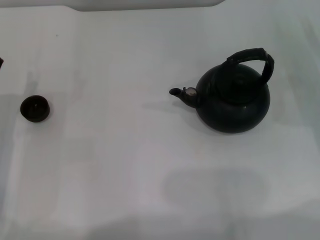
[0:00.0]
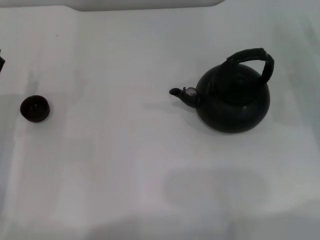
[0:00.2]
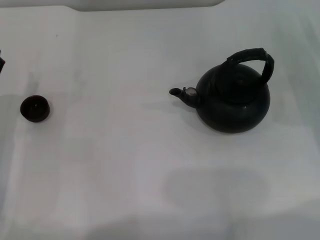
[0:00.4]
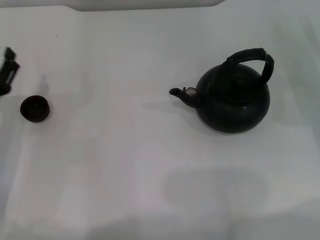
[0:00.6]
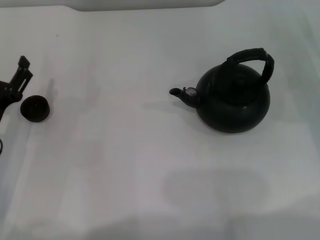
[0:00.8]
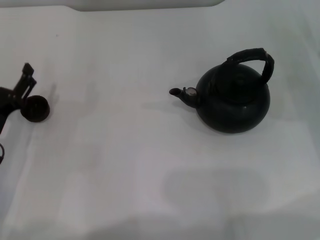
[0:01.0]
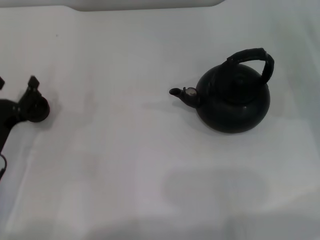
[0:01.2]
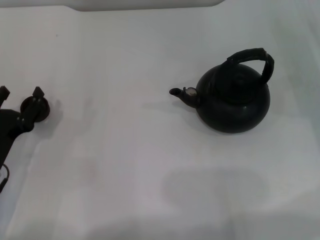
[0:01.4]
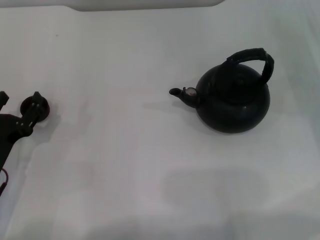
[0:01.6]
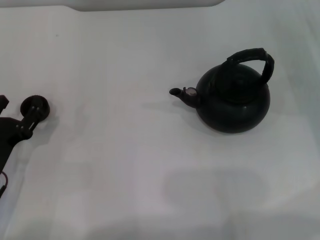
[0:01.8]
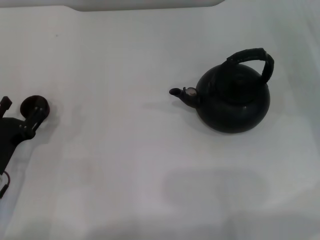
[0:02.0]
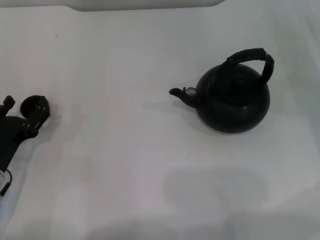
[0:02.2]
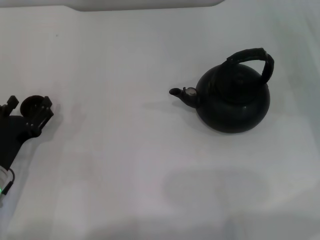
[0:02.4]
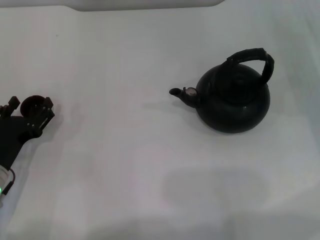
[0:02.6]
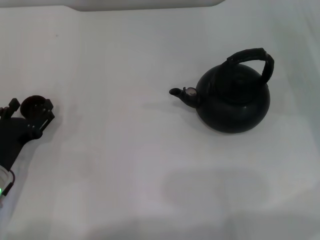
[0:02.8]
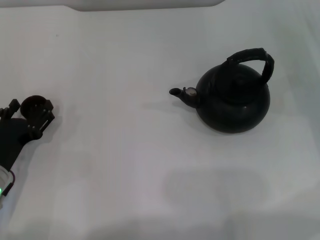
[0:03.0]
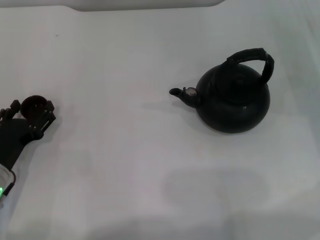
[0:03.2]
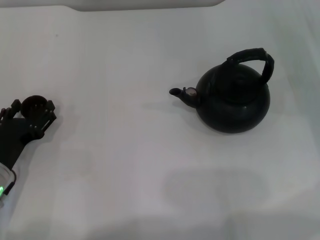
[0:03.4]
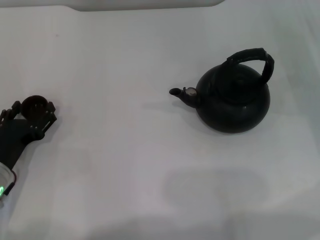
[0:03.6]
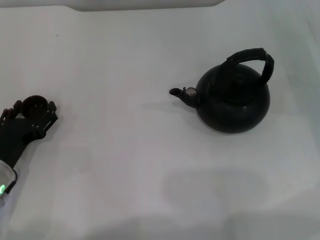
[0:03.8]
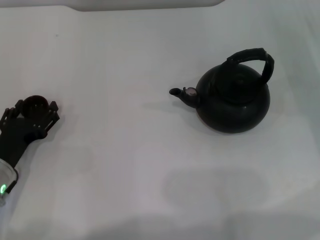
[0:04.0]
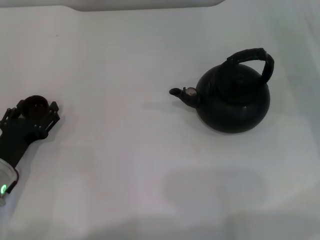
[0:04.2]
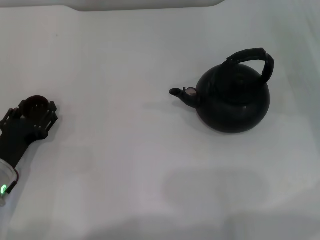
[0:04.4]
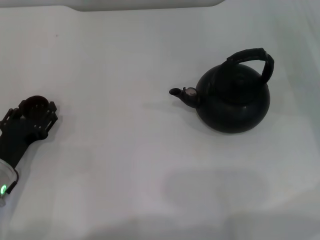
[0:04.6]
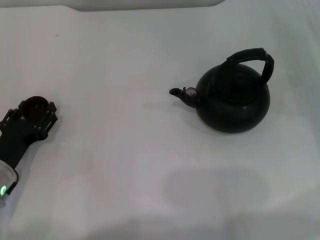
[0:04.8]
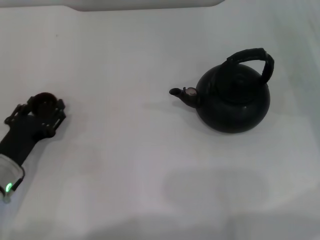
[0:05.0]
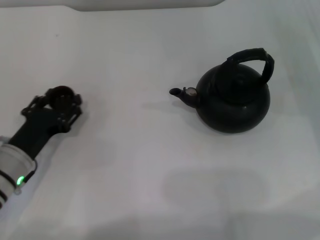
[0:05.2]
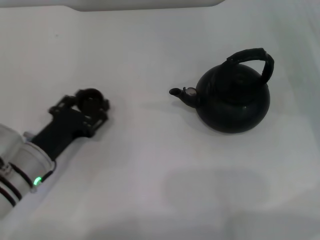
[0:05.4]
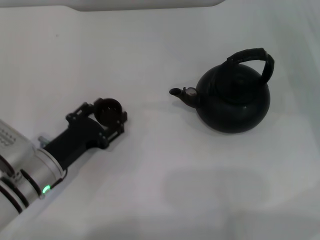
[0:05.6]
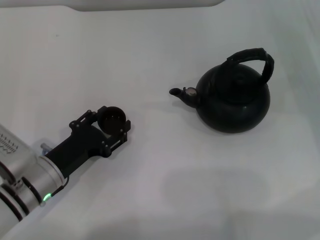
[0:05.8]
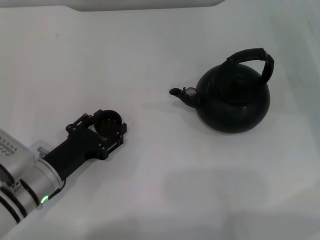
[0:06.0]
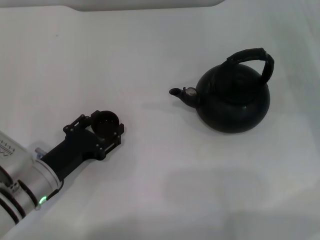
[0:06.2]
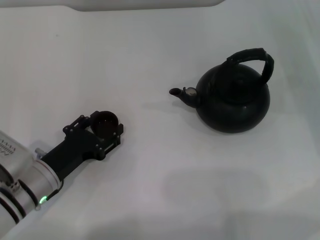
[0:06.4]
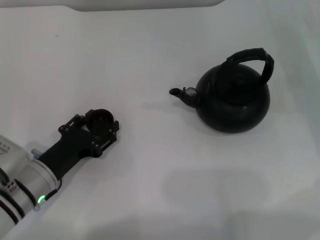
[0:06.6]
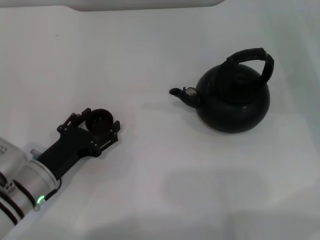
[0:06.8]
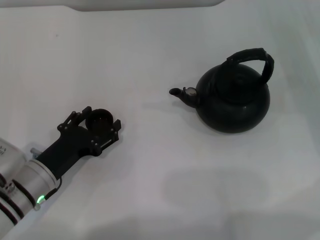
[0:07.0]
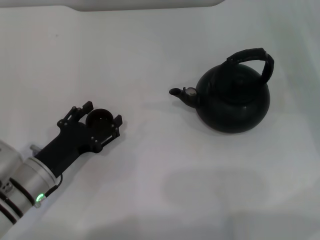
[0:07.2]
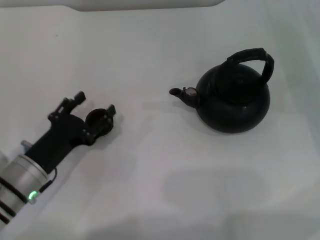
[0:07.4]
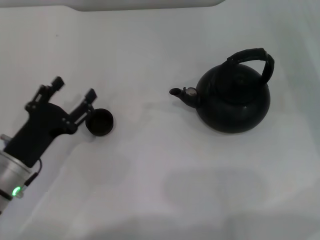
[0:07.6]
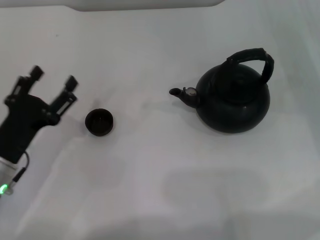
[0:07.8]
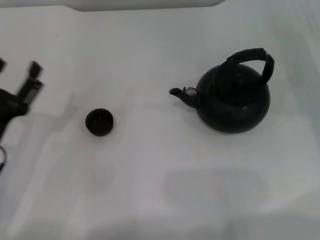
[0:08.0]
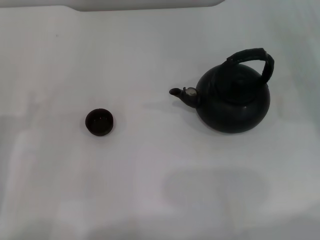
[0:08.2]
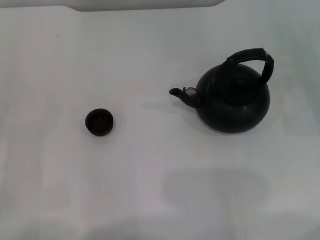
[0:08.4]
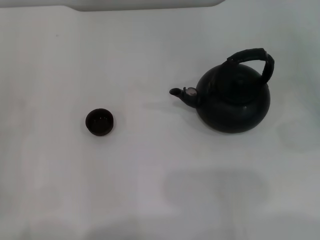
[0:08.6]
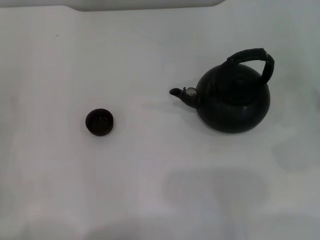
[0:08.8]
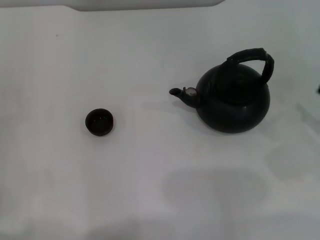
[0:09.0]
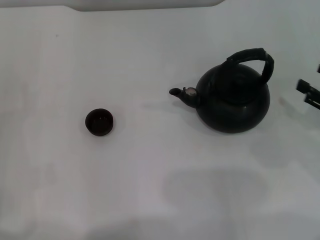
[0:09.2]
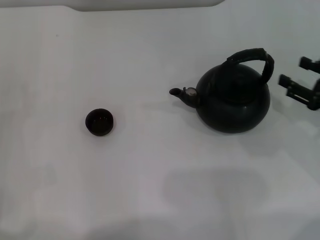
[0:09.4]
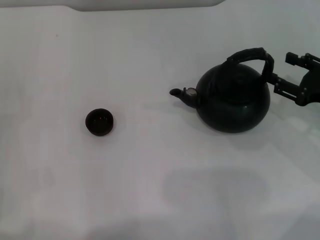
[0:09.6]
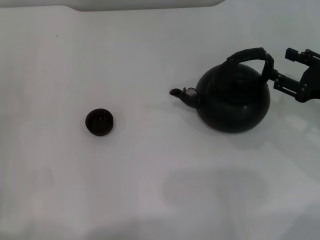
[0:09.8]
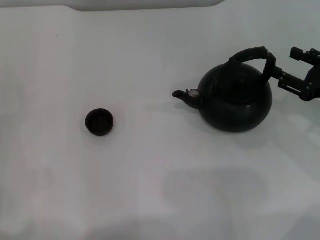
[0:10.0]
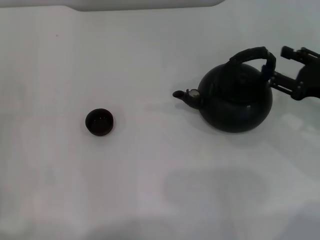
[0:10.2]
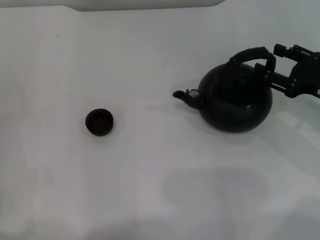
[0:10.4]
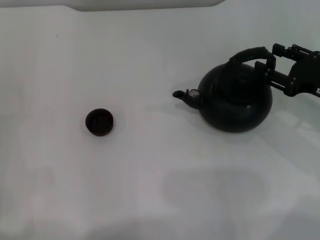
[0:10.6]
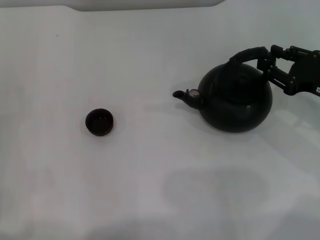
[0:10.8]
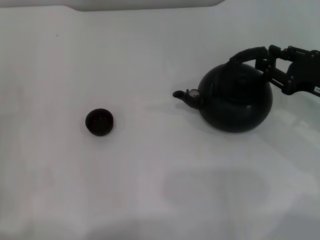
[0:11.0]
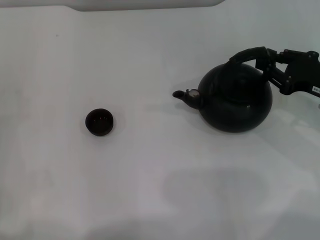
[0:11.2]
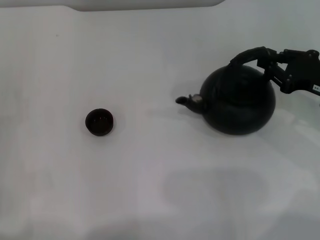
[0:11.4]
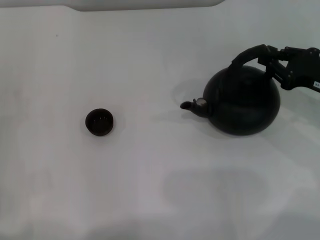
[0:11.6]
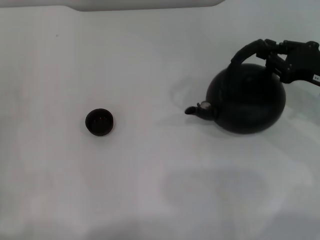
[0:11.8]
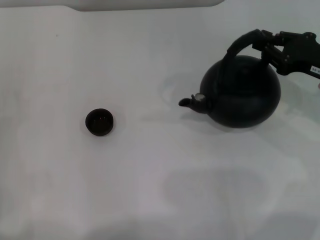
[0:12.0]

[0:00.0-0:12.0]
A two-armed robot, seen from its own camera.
Task of the whole recording: Grasp the handle of the teapot with one hand and pour tea into the teacup.
Step, 0:00.0 to 0:05.2: Pick up the teacup with the left gripper.
Step, 0:05.6 to 0:07.6: Place the teacup in the center of view with the left gripper.
Step, 0:08.0 to 0:12.0: Pick up the teapot with the right gripper.
0:00.0 to 0:01.6: The left gripper changes place by some 5 cm.
0:01.6 to 0:03.0: There are only small adjustments of the grippers.
0:03.0 to 0:04.4: The left gripper closes up.
0:04.4 to 0:06.0: The left gripper moves to the right, some 5 cm.
0:06.0 to 0:07.6: The left gripper opens its fingers.
0:07.6 to 0:09.0: The left gripper goes approximately 10 cm to the left.
0:09.0 to 0:10.4: The right gripper goes roughly 10 cm forward and to the left.
0:10.4 to 0:12.0: The right gripper closes up.

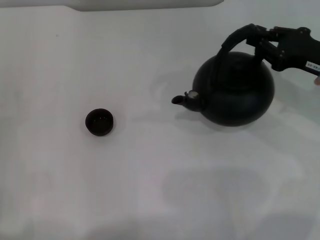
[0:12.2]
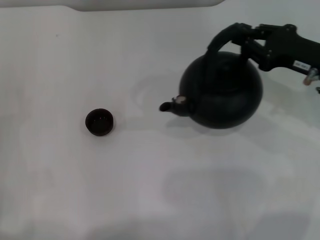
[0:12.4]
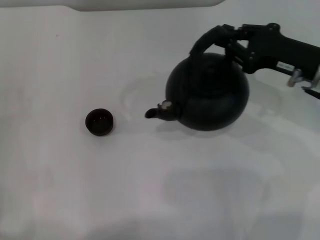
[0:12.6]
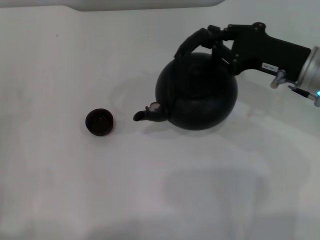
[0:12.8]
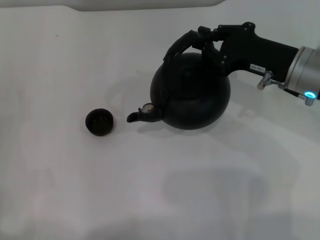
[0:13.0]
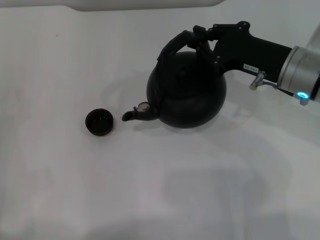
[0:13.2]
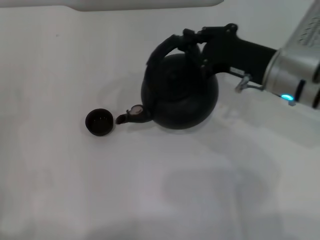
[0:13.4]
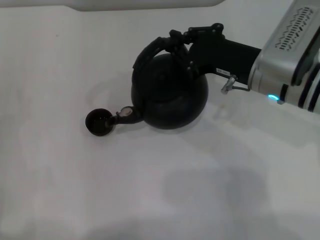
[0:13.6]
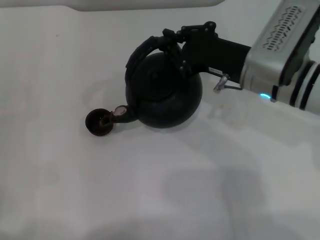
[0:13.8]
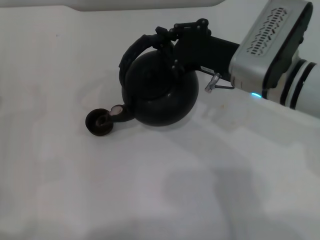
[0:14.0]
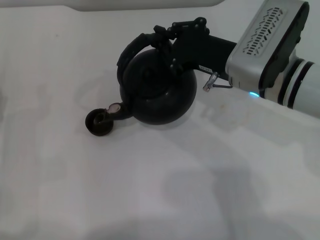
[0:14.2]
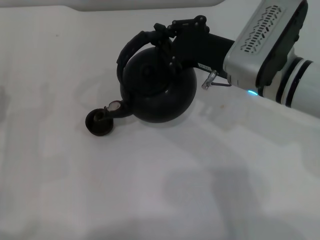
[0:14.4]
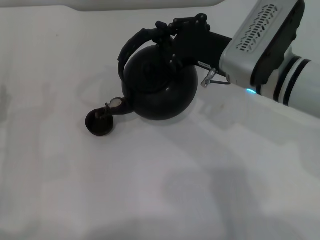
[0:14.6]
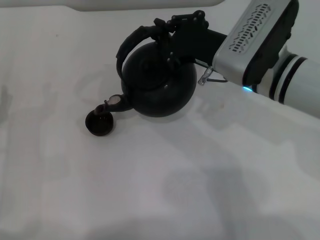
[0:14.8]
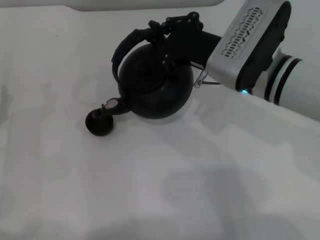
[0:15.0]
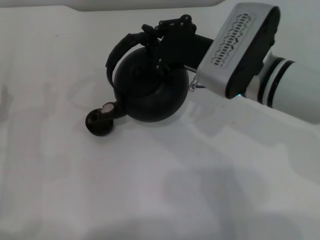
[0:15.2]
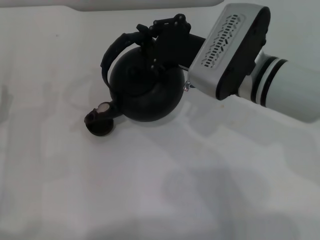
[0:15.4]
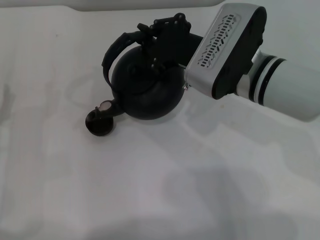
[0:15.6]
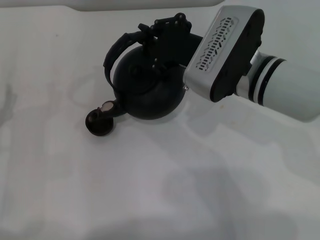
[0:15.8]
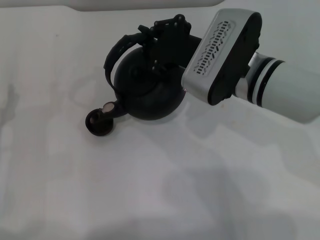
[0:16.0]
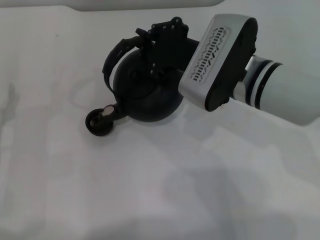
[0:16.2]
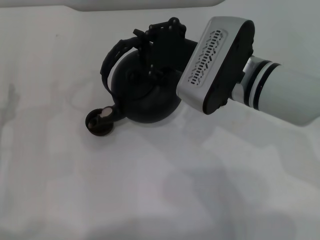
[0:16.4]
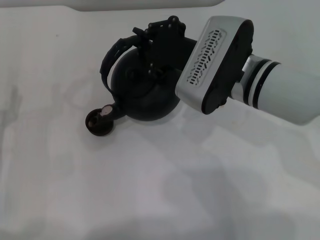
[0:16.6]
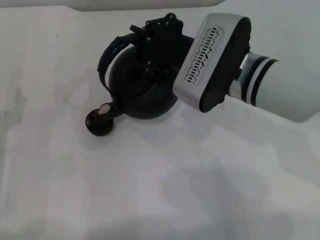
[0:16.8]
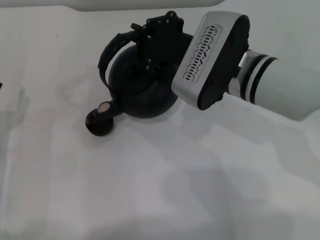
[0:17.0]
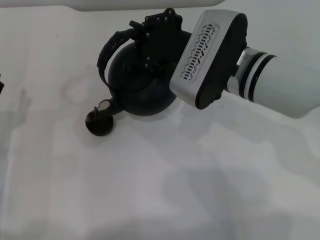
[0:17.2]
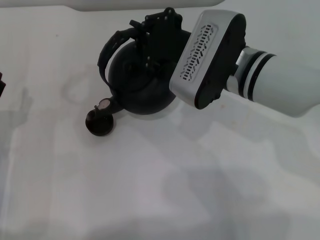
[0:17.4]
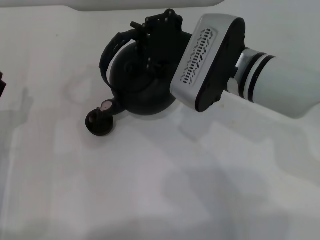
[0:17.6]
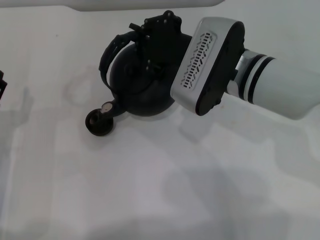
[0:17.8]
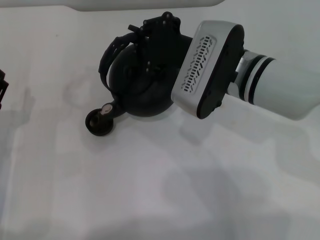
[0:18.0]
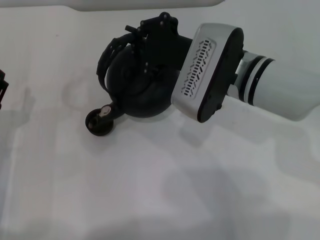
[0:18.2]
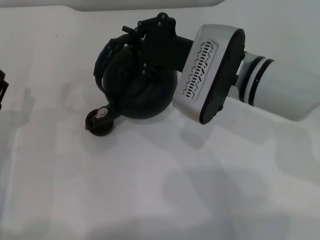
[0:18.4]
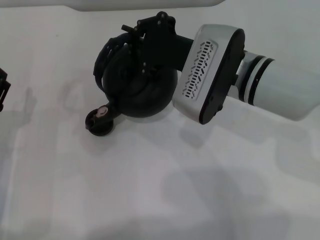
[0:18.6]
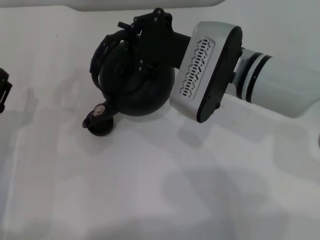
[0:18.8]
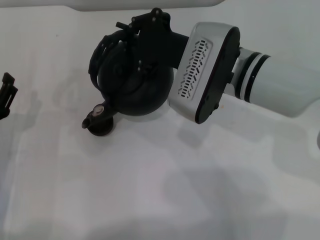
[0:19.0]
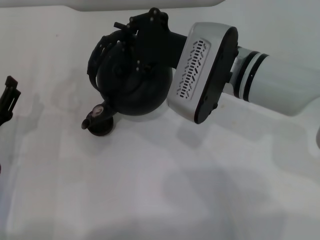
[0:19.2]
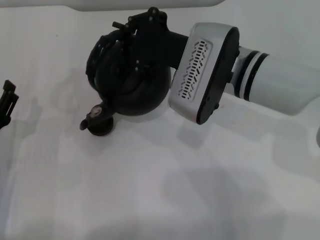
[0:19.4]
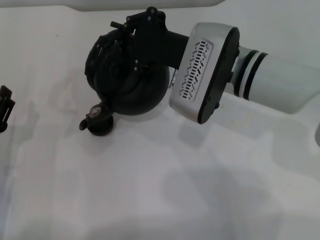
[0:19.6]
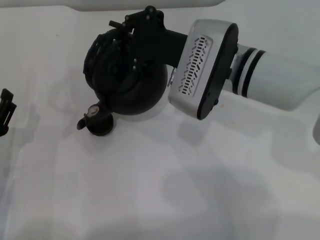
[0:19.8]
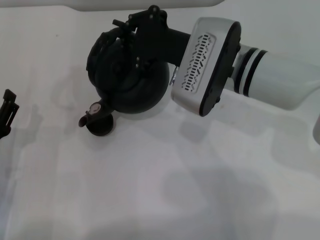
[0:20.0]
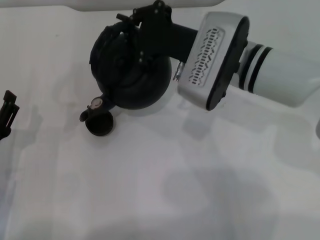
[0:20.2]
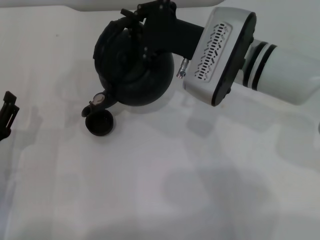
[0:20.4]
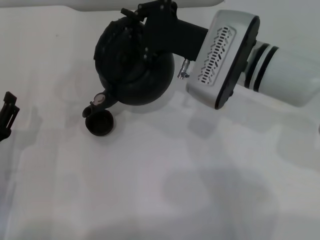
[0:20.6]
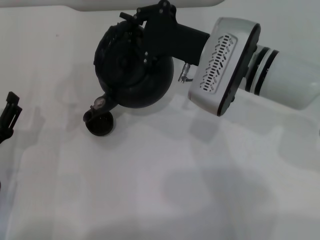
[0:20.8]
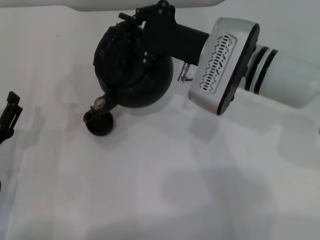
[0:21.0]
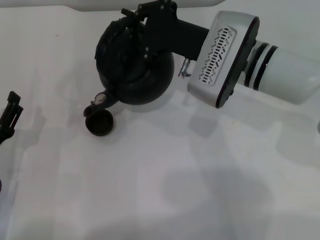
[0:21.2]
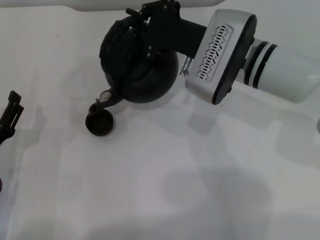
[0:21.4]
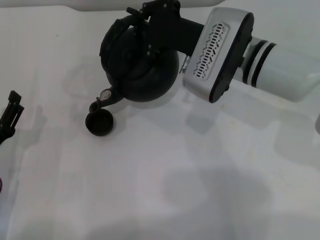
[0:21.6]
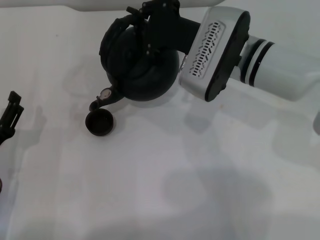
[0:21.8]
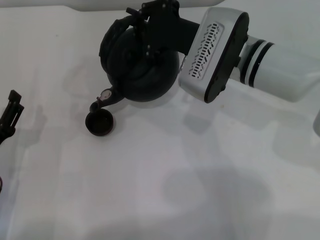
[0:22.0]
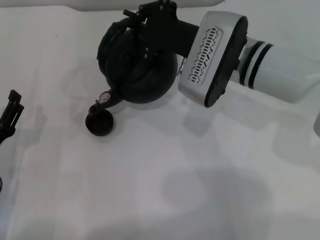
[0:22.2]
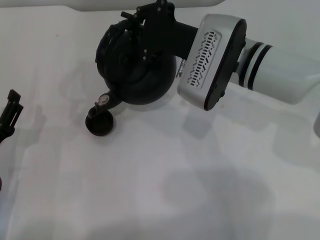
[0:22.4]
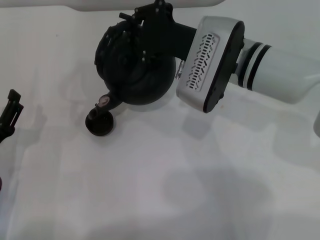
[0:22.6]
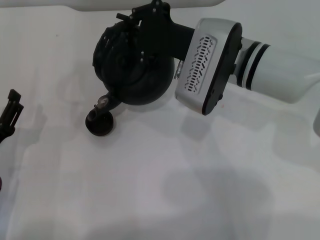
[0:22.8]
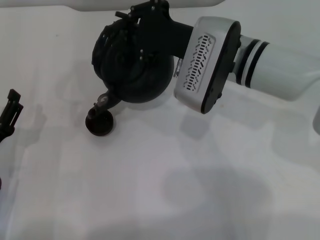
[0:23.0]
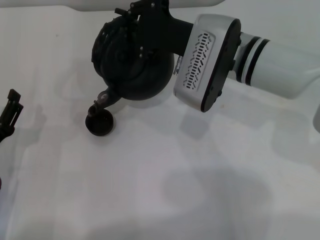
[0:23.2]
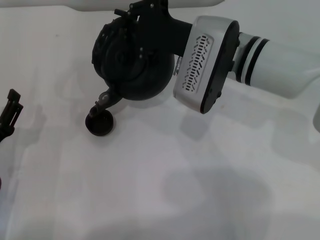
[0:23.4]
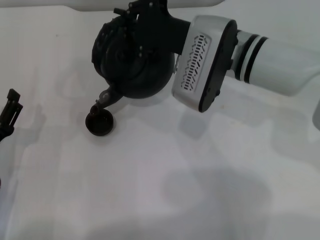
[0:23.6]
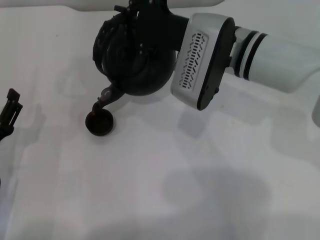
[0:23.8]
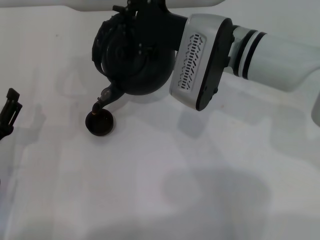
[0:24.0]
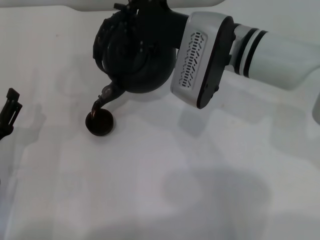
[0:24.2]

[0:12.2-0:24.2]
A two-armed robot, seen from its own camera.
Task of the whole recording: Grasp the handle of the teapot with one hand and pour tea into the teacup.
0:12.2 to 0:13.8: The right gripper goes roughly 15 cm to the left.
0:13.8 to 0:15.2: The grippers make only small movements.
0:15.2 to 0:18.2: The grippers stay close to where they were, moving slightly.
0:18.2 to 0:24.2: There are only small adjustments of the grippers.
